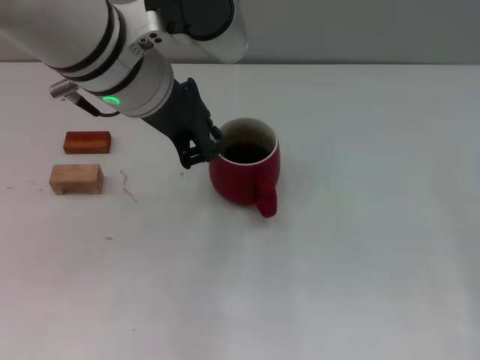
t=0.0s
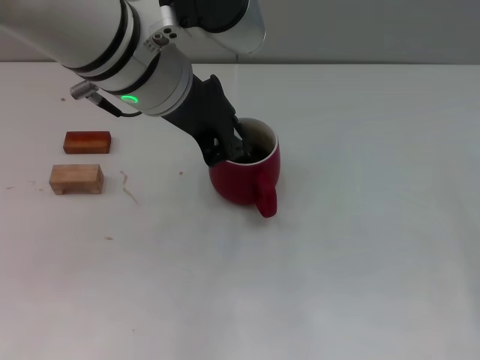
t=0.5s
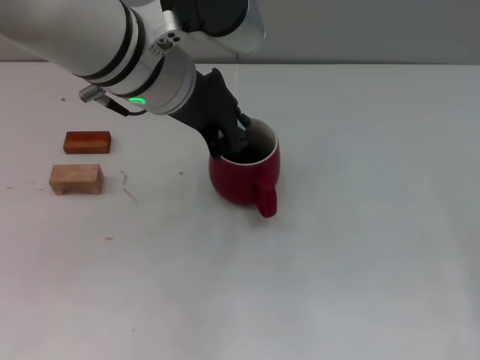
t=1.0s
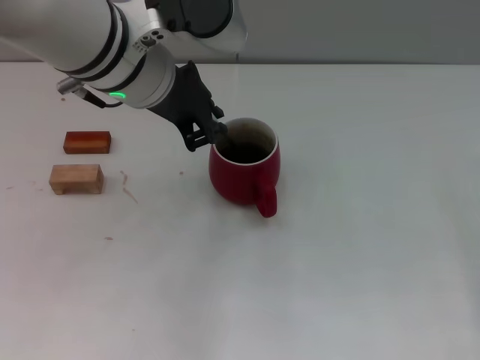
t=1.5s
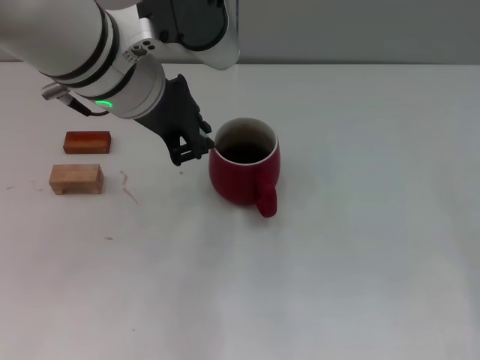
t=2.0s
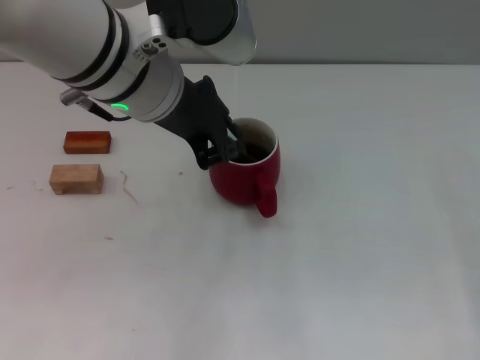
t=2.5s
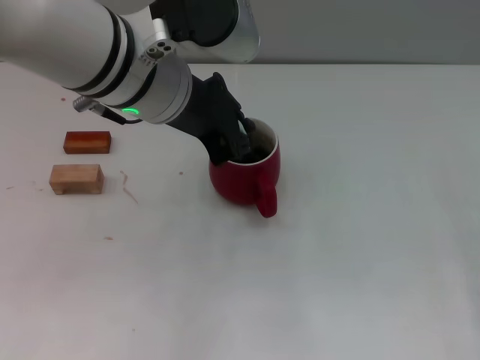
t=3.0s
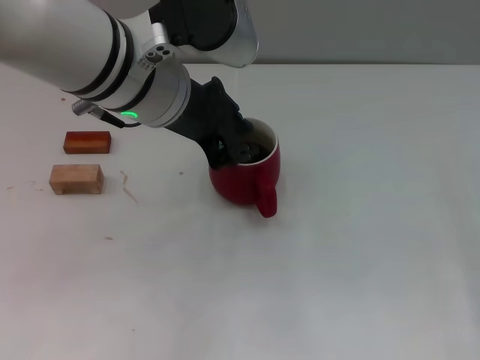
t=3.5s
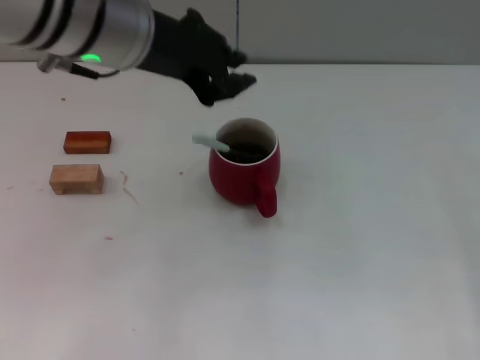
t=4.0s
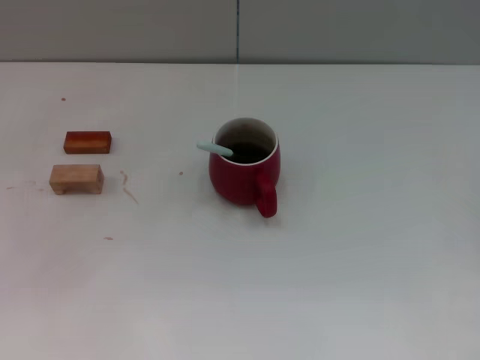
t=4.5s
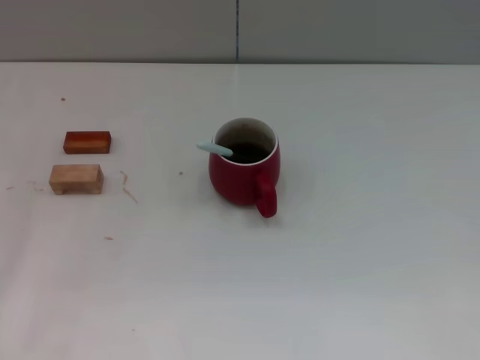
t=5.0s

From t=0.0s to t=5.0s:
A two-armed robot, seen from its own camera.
Task of the whole recording: Move the red cup to the center, lift the blue spoon, stir it three times in the cup, and put the spoon into the cup.
Step, from t=0.0s to t=3.5s: Stir the coffee in the cup with the left gripper.
From t=0.0s to t=2.5s: The grippers stay close to where they were, moving slightly.
From t=2.5s to t=5.0s: The left gripper heads to the left, covering roughly 25 cm.
